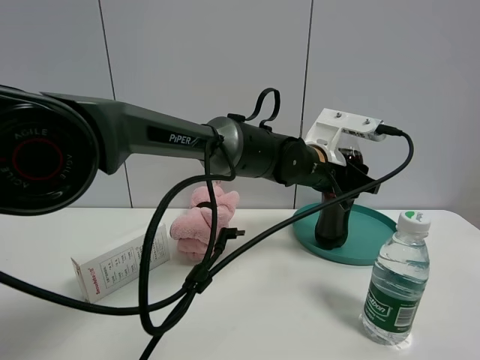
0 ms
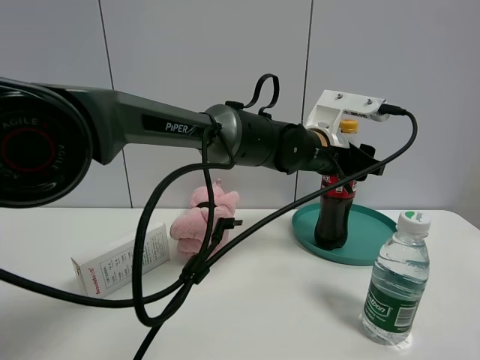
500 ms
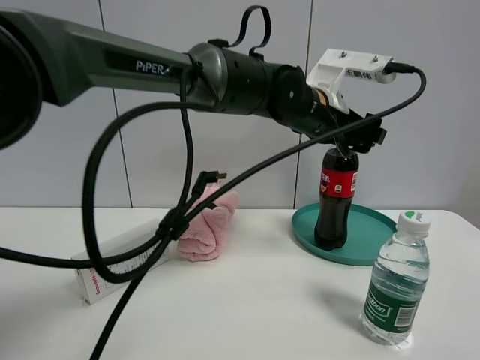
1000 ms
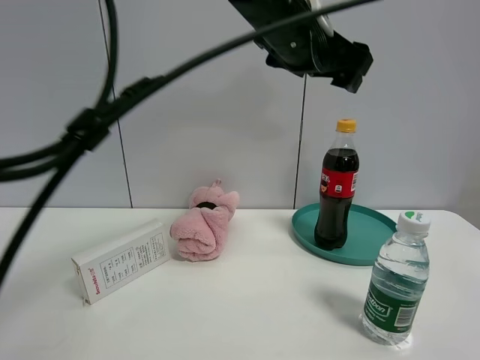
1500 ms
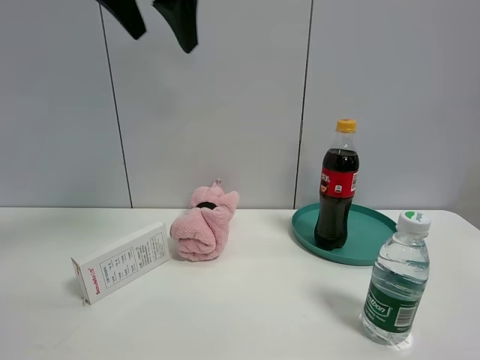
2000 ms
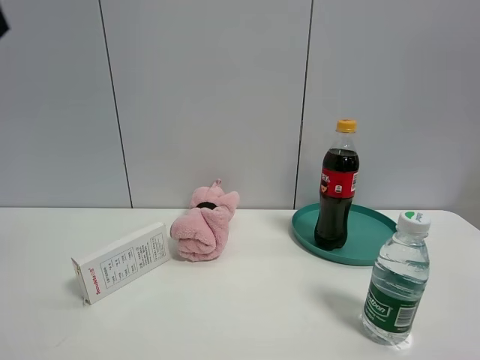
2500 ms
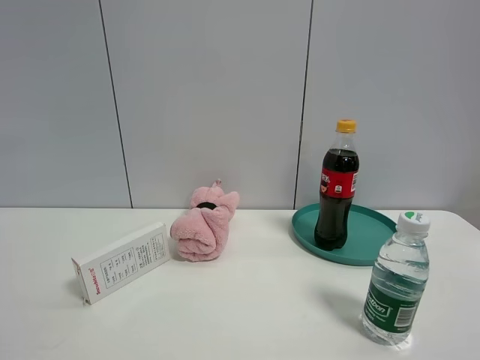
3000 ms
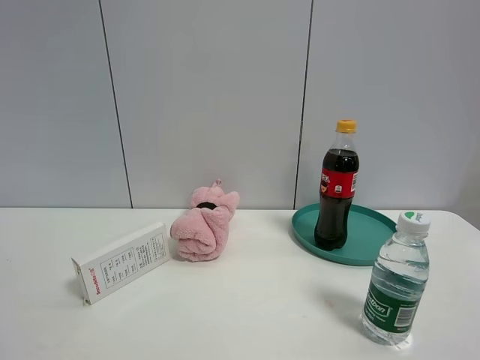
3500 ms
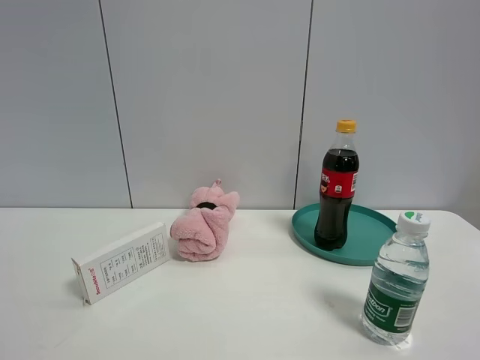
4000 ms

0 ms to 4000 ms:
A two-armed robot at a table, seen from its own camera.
Task of the whole recording: the gripper move the object.
0 ms to 2000 ms: The left gripper heads upward and to the left, covering approximately 35 cm, and opens up.
2000 ms to 4000 ms: The left gripper travels backward, to the left and downward by roughly 40 cm.

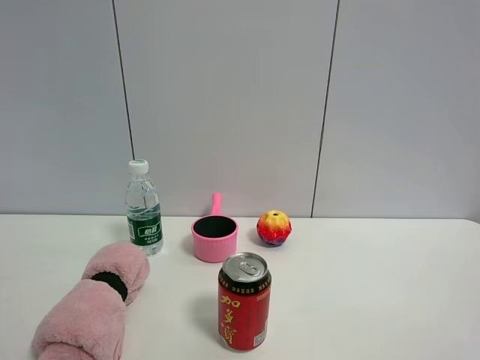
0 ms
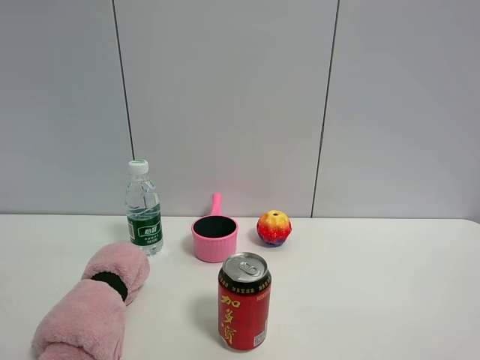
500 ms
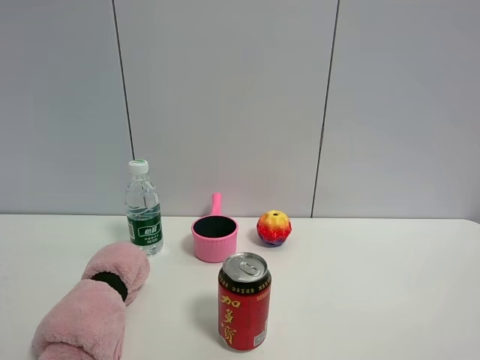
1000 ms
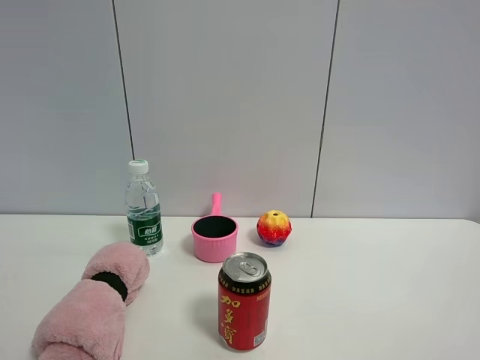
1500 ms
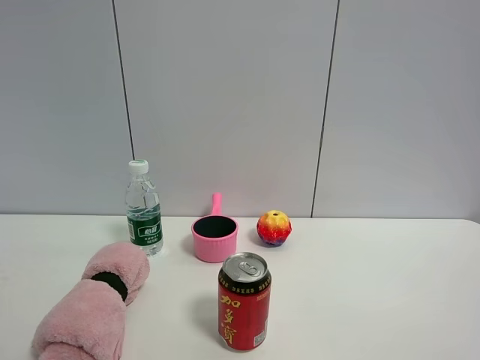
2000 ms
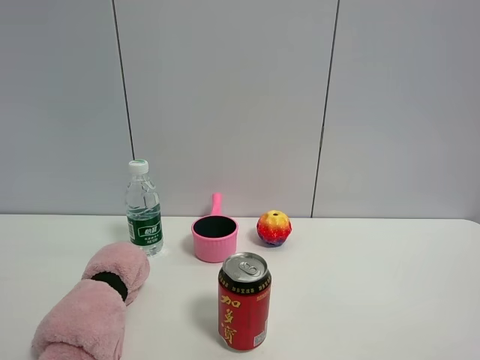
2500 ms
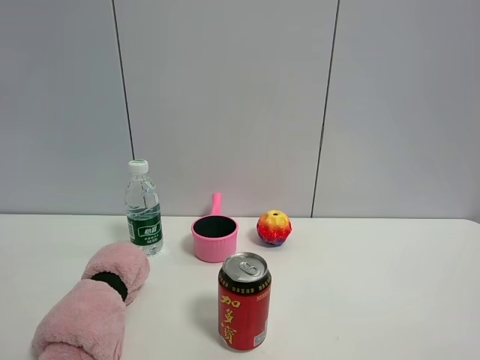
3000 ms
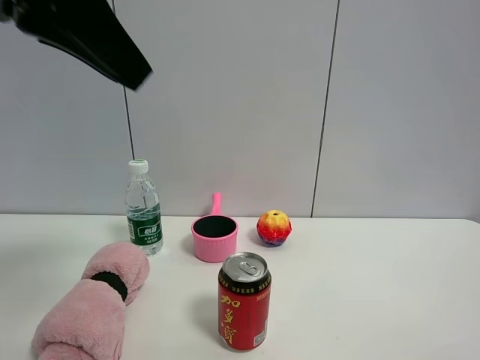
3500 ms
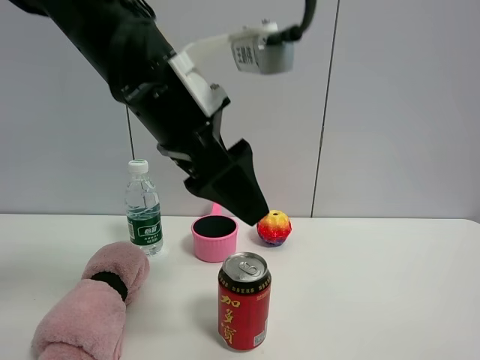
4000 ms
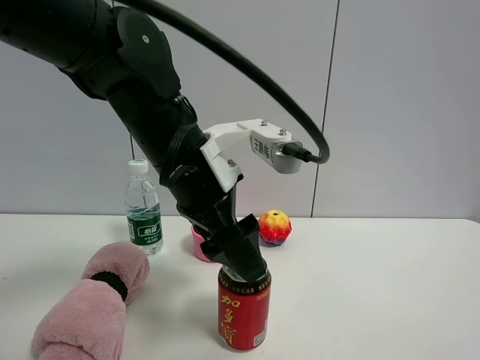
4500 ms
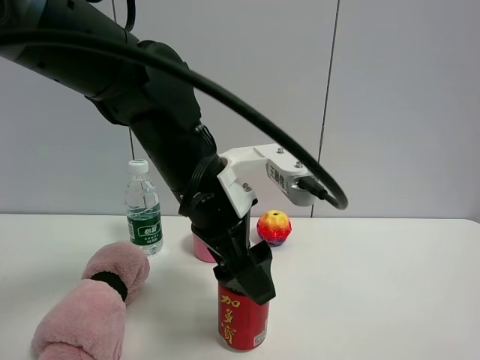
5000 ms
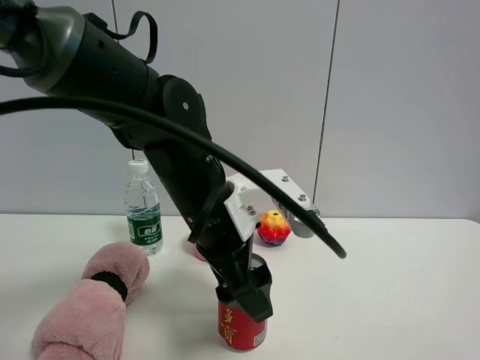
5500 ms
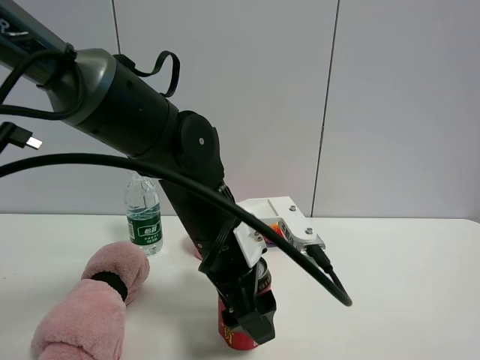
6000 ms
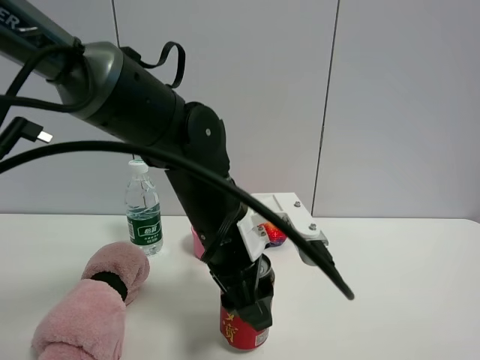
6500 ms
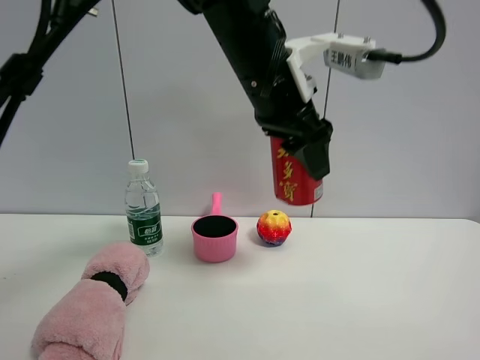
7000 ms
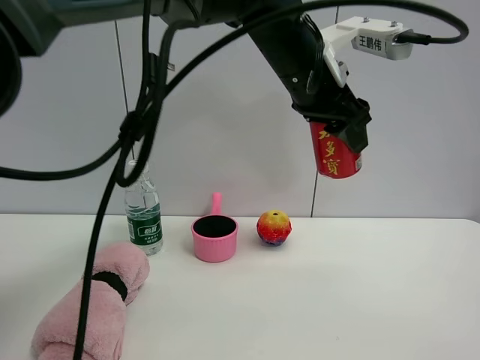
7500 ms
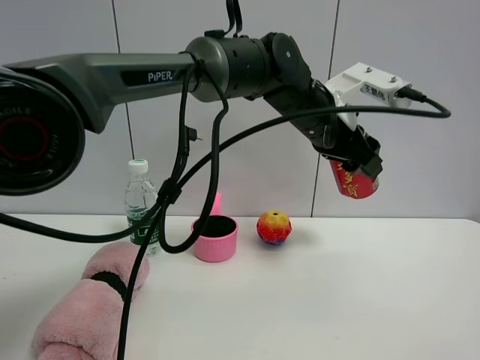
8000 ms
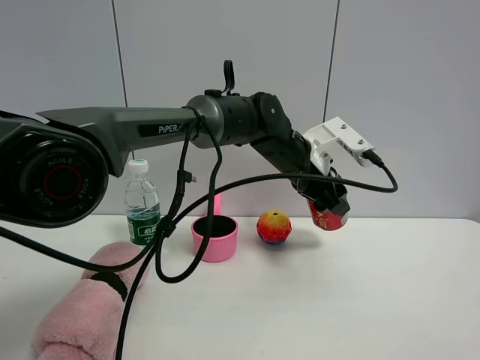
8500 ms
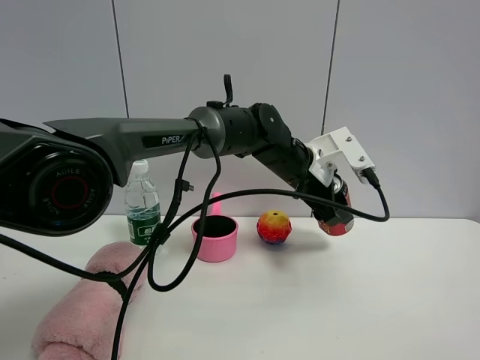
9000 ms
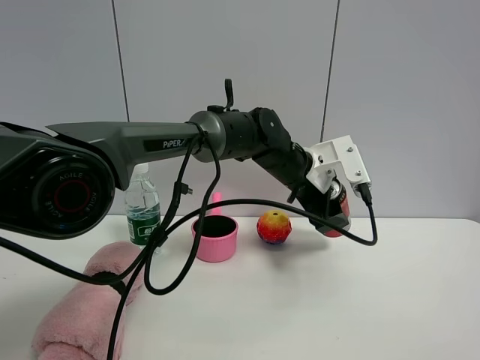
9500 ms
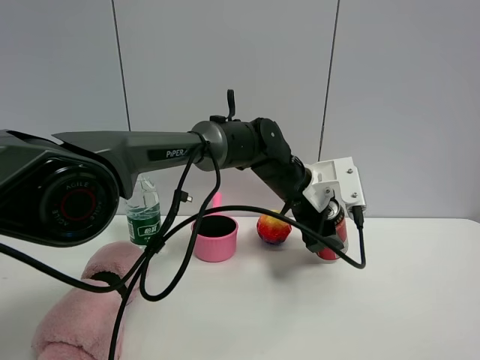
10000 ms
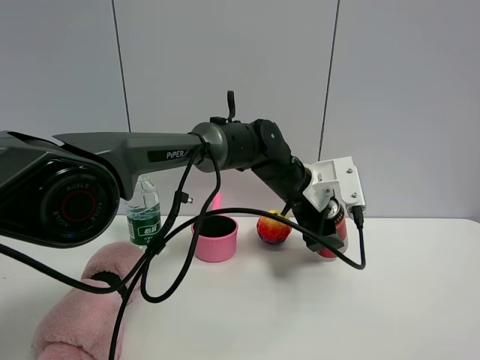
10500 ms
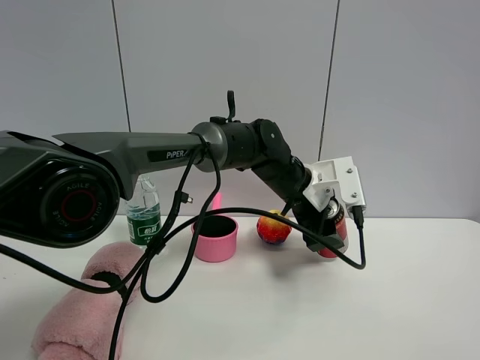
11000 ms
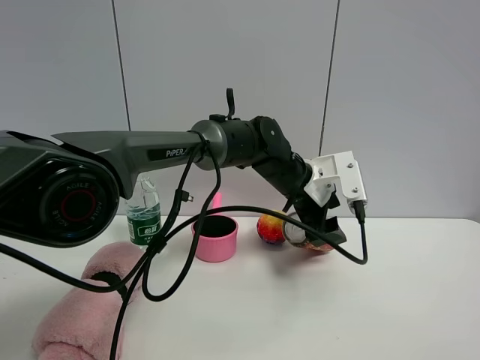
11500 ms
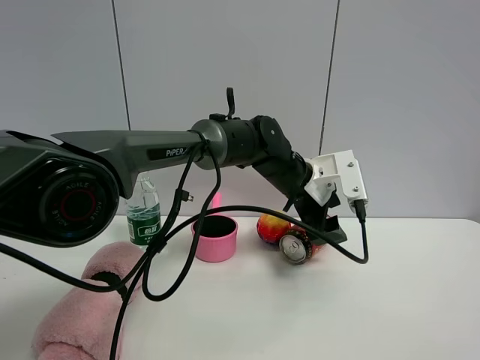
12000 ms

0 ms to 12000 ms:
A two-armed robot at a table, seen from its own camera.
Task of the whole recording: the gripper move the object.
Step, 0 ms to 6000 ms: Grasp the Jia Duo Bao with the left gripper.
Step, 6500 ms to 11500 ms: Place the Jia Duo Bao on the table with the left gripper.
0 ms to 2000 ms: Both grippers stay put.
2000 ms to 4000 ms: The left gripper moves forward and to the right, roughly 35 cm.
4000 ms to 6000 ms: The left gripper goes some 15 cm downward.
6000 ms to 8000 ms: The left gripper is displaced forward, to the right and upward by some 20 cm, and closes up.
8000 ms to 10000 ms: The left gripper travels downward by about 10 cm.
10000 ms to 12000 ms: The two grippers keep their place.

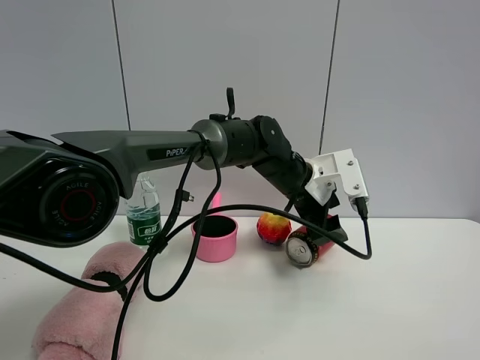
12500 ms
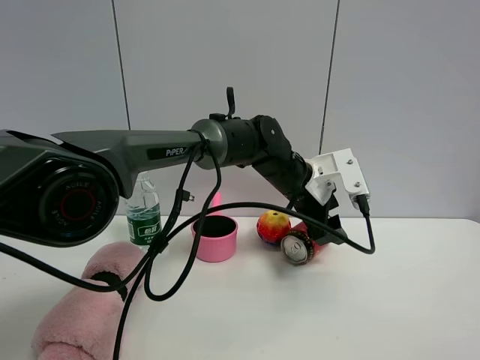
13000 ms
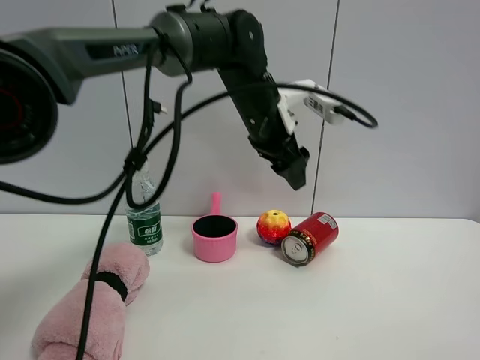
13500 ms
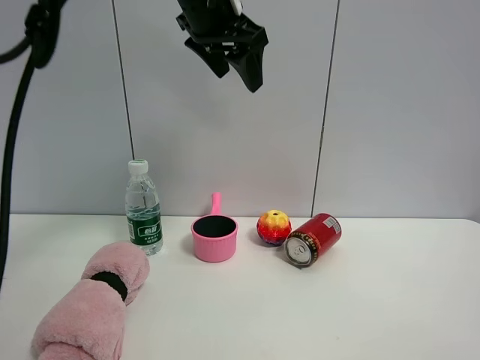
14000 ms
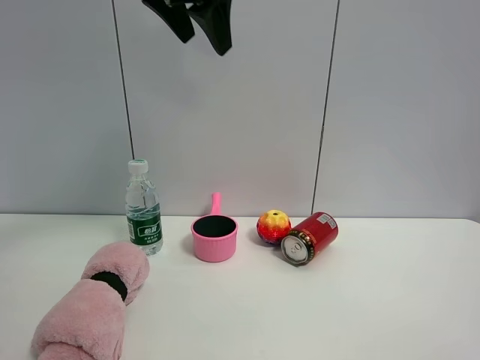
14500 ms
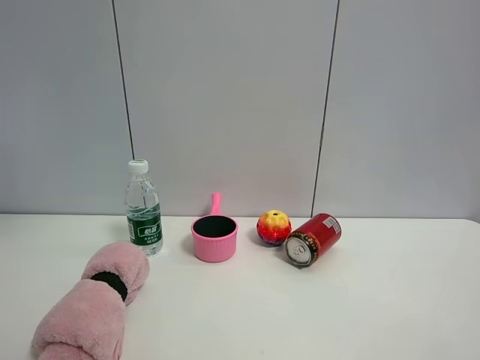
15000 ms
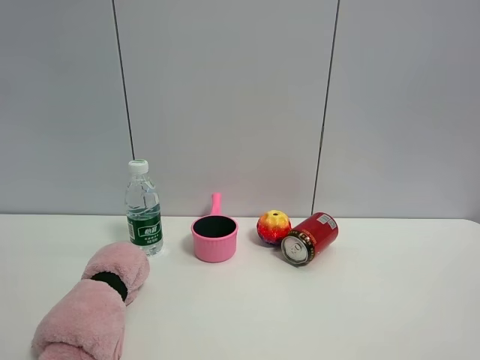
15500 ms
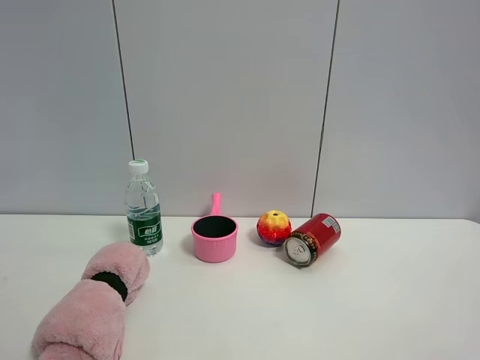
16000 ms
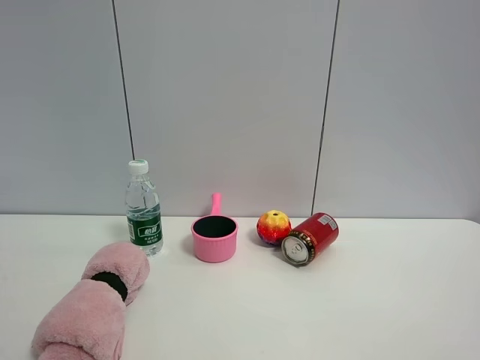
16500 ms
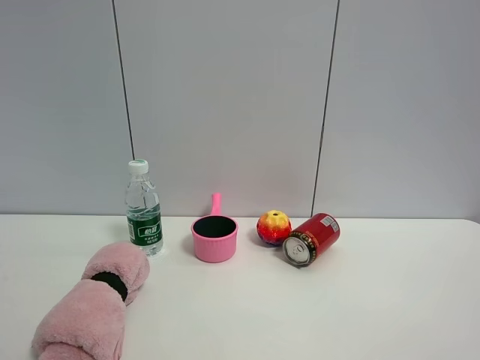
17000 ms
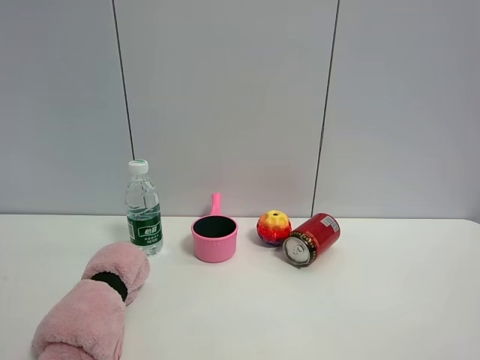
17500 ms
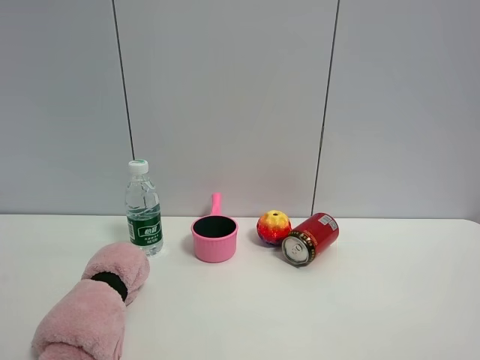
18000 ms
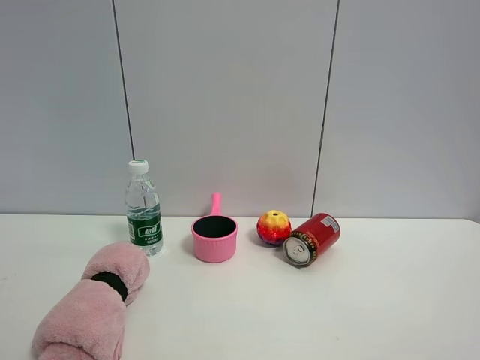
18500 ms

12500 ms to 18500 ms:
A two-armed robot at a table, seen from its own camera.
Task of the whole recording: the gripper move the object.
12500 ms to 14500 ms: The left gripper heads upward and to the left, covering roughly 35 cm.
14500 ms to 16500 ms: The left gripper heads backward and to the left, covering approximately 40 cm.

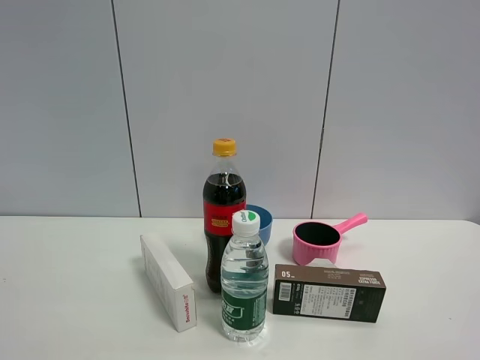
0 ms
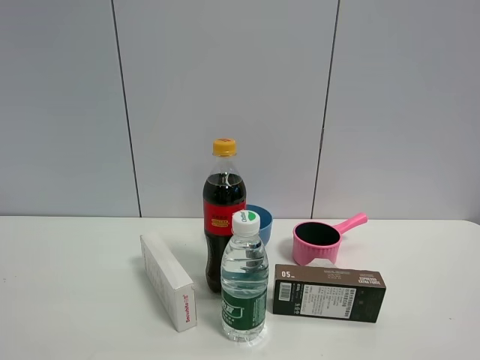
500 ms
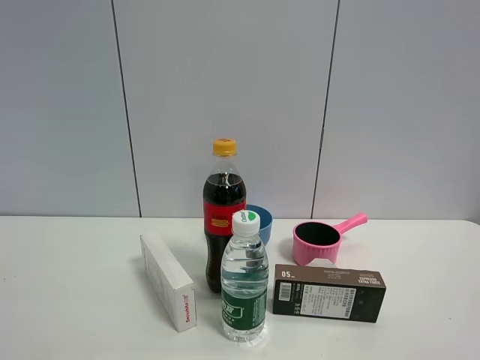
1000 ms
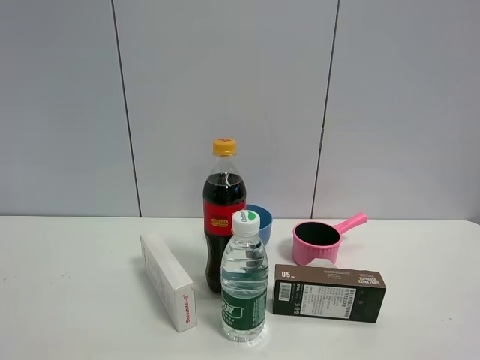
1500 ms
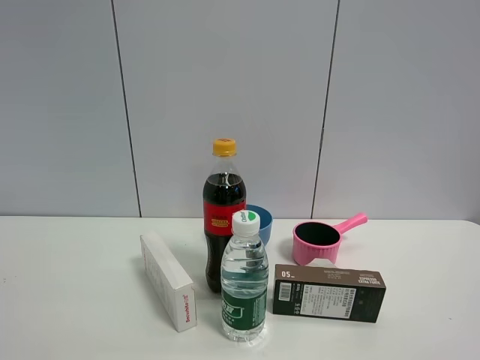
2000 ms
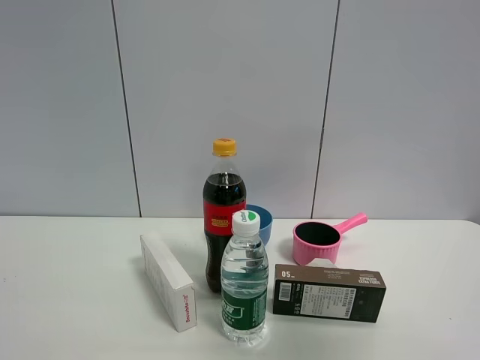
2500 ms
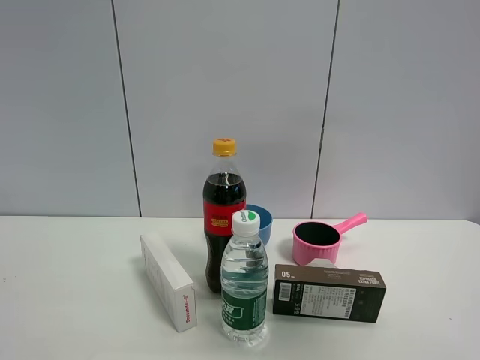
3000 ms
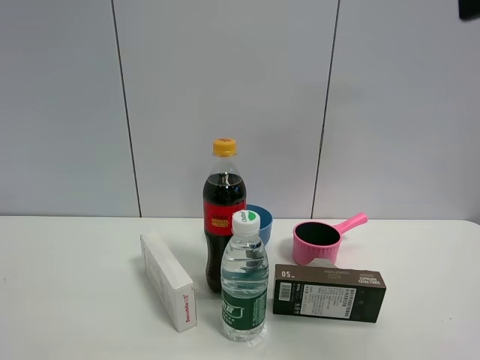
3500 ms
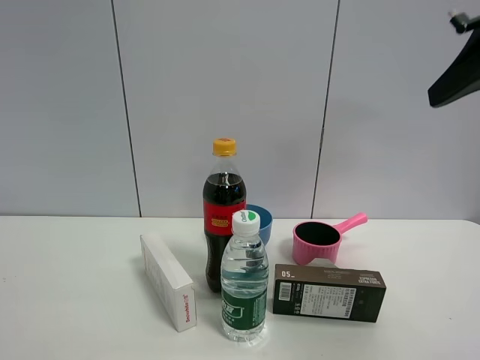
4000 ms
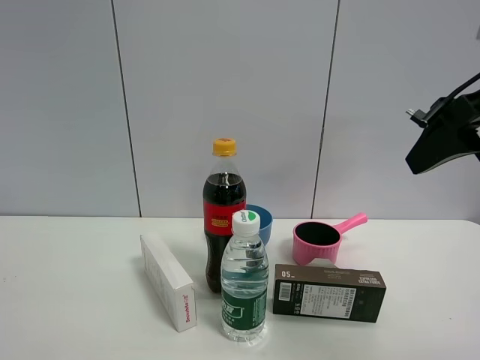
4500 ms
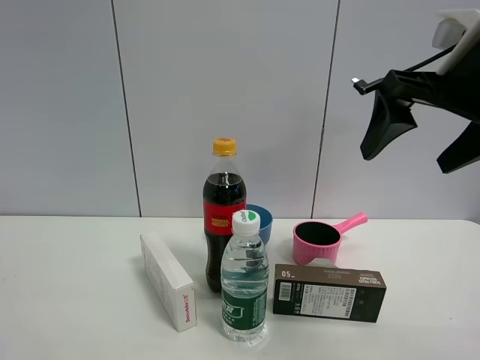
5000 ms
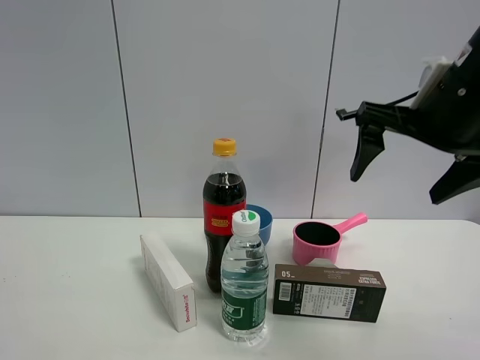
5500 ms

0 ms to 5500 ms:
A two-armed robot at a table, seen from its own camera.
Task of the whole recording: the gripper move the object.
0 ms to 2000 ms: Both grippers stay put.
2000 ms to 3500 ms: The right gripper shifts some 20 cm forward and upward.
3500 ms to 5500 ms: The right gripper heads forward, downward and to the left, covering some 15 cm.
